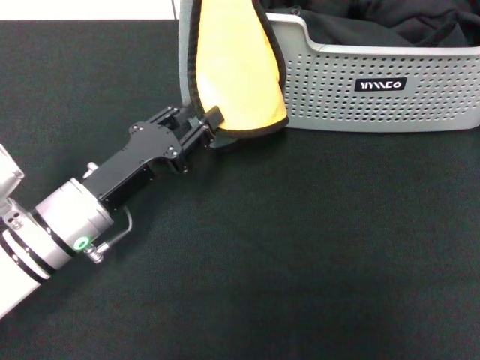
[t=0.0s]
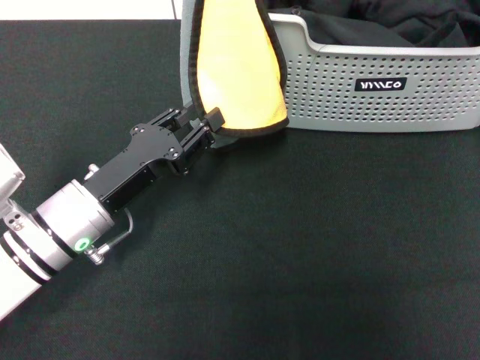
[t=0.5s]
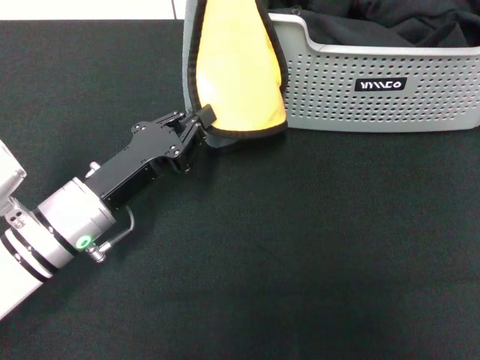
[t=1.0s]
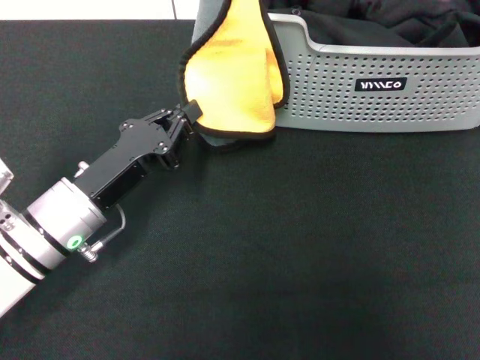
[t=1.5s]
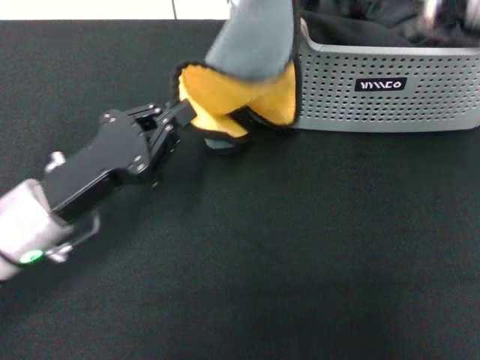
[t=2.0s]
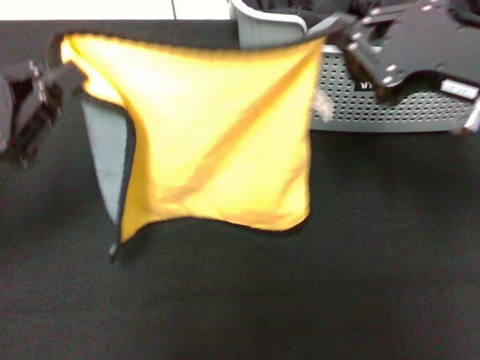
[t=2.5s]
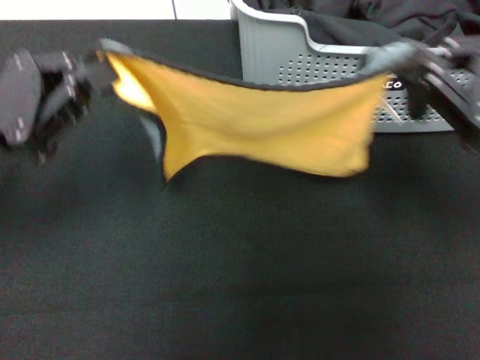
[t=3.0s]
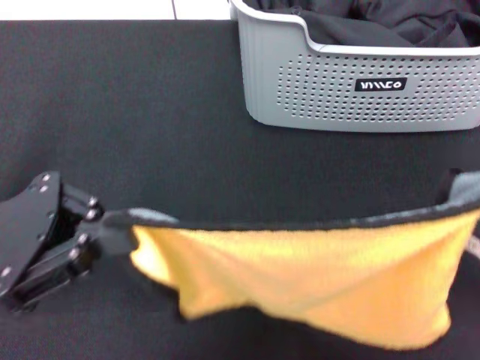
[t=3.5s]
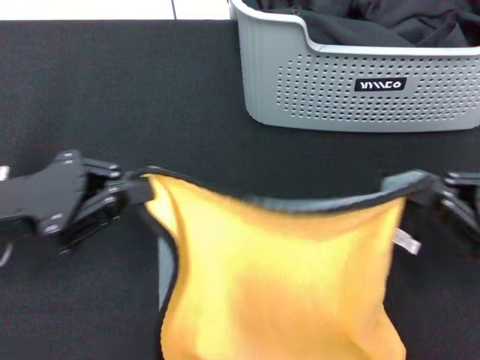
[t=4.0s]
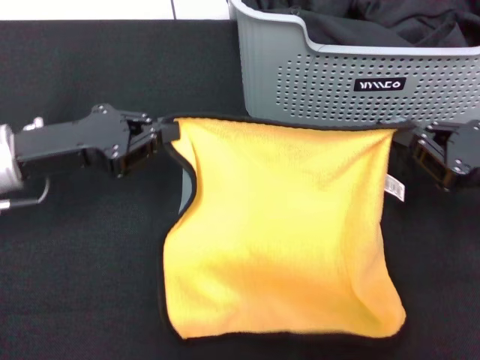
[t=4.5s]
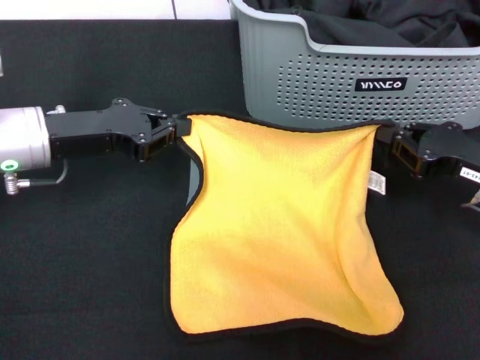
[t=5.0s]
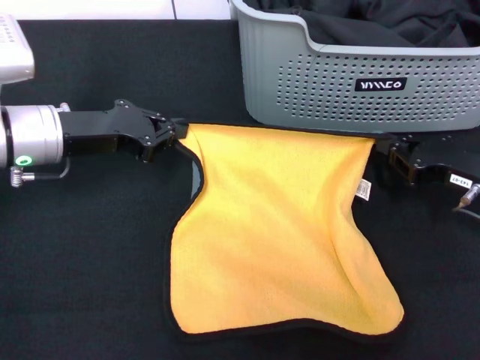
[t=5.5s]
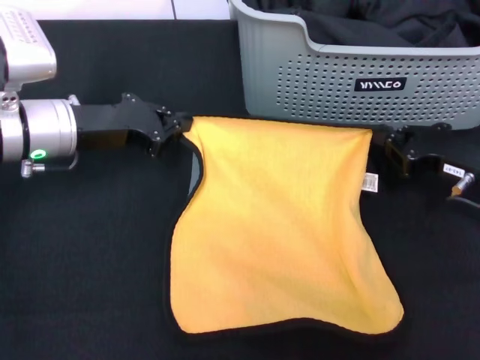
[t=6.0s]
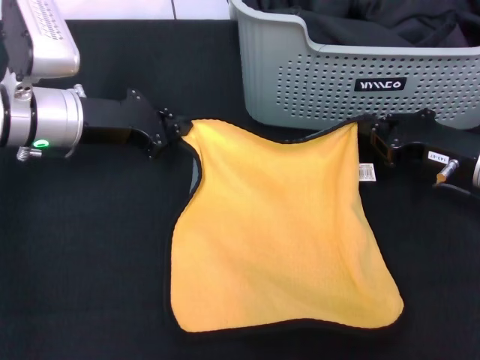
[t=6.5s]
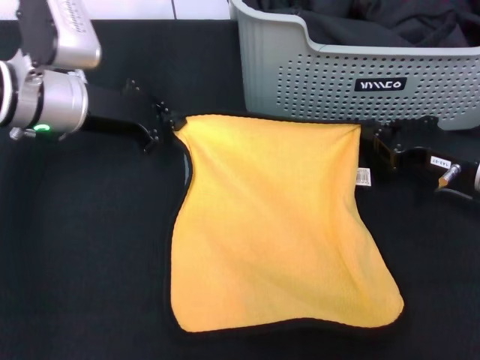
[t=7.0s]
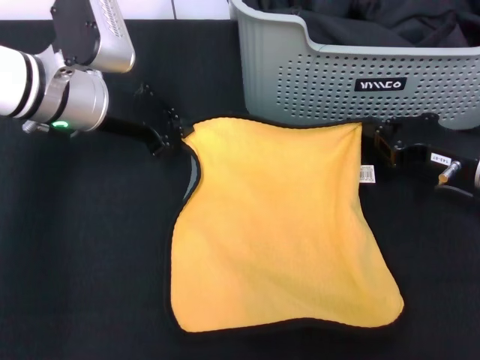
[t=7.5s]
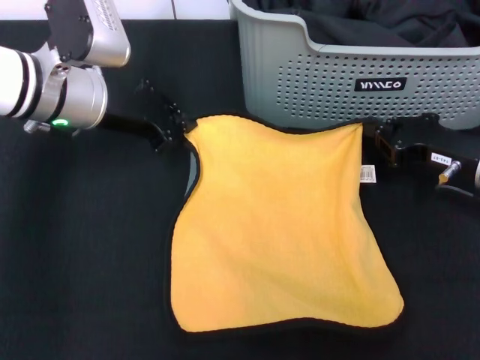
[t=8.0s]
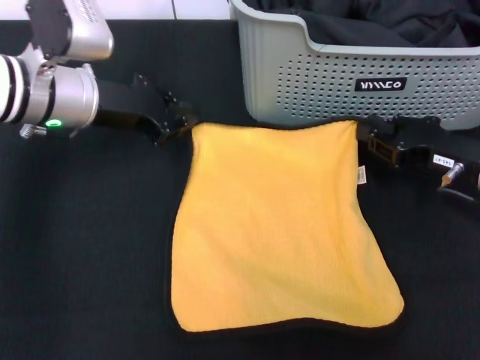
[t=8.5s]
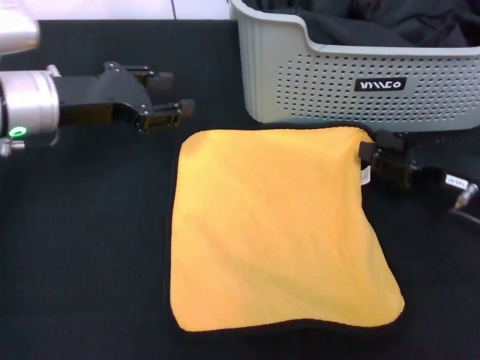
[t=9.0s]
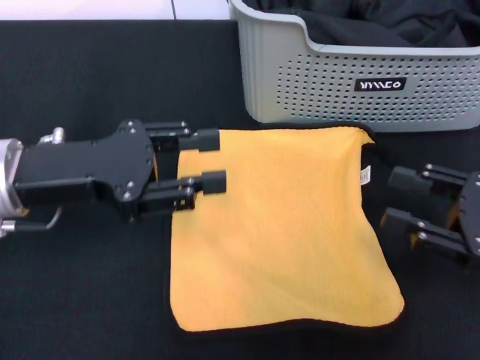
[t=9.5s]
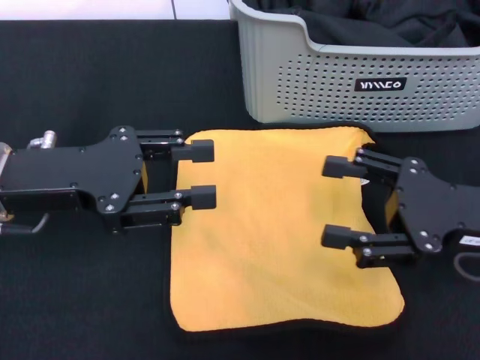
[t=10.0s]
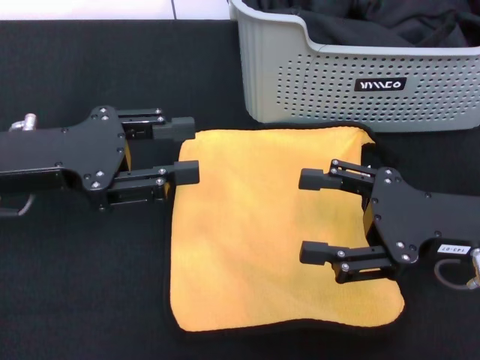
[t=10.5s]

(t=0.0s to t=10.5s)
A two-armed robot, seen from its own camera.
Task of the whole recording: pick up the towel from the storage box and lay it flat on the black tablecloth.
Step, t=0.0s - t=8.5s: Spread the towel flat with the right gripper.
t=0.0s - t=2.0s: The right gripper goes approximately 10 cm to the right and backward; the left gripper closes its fingers.
t=2.0s - t=4.0s: The left gripper travels to the left by approximately 5 cm, while the right gripper is displaced backward, downward and to the right by roughly 20 cm.
t=4.0s - t=6.5s: The right gripper is displaced forward by roughly 15 cm. Meanwhile the left gripper heads forward and to the right, covering some 15 cm.
t=6.5s - t=8.5s: The grippers move only a little.
t=8.5s - t=10.5s: Both grippers move backward, approximately 10 cm. The right gripper opens up. Meanwhile the left gripper opens.
